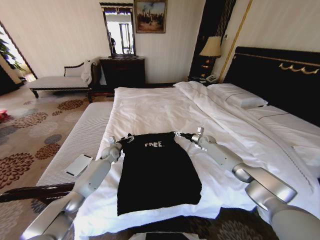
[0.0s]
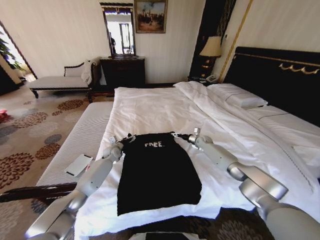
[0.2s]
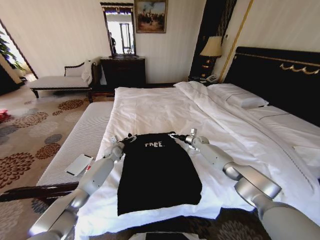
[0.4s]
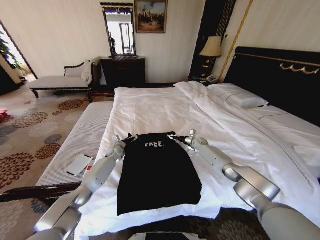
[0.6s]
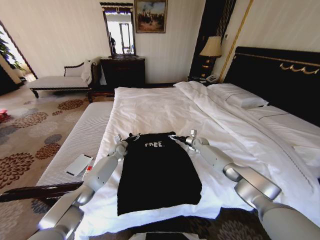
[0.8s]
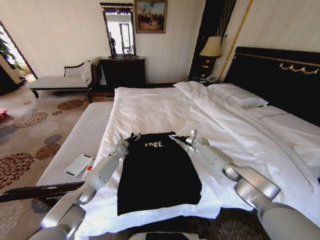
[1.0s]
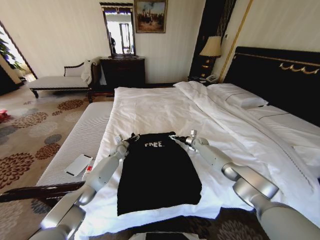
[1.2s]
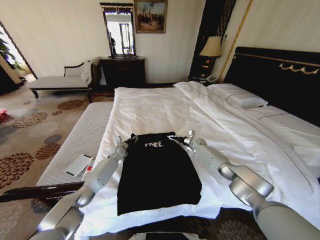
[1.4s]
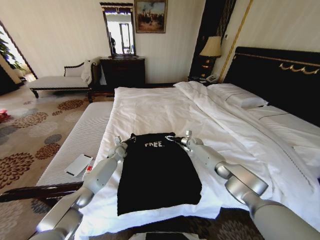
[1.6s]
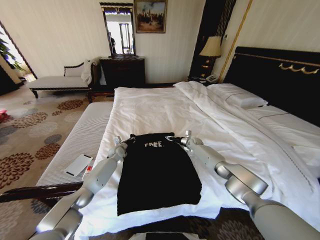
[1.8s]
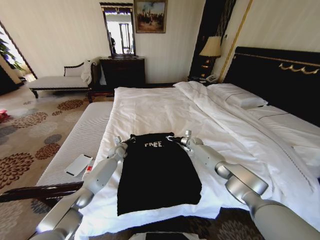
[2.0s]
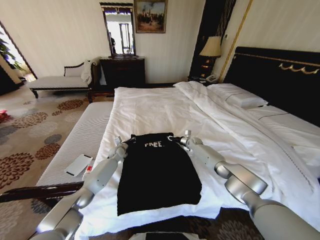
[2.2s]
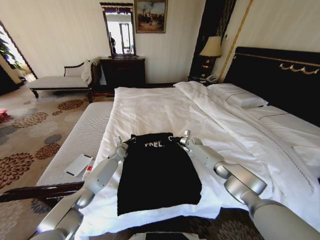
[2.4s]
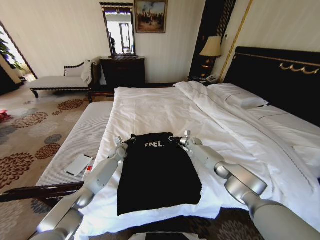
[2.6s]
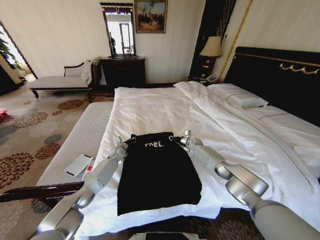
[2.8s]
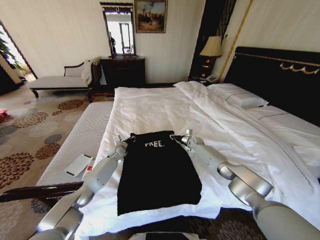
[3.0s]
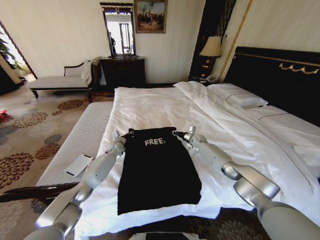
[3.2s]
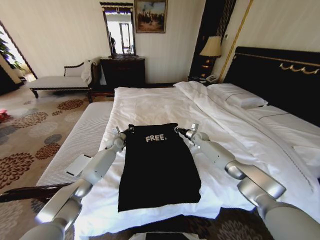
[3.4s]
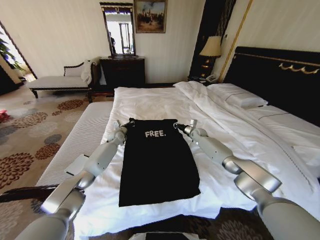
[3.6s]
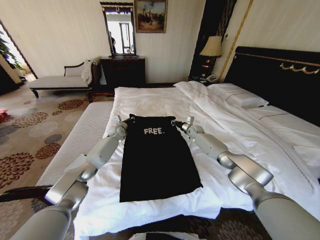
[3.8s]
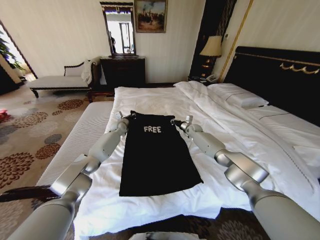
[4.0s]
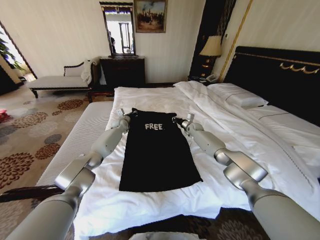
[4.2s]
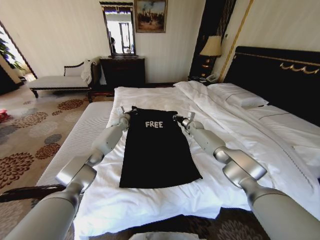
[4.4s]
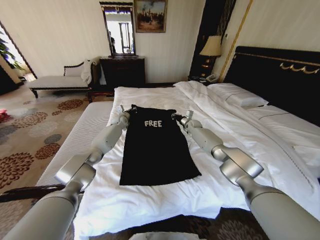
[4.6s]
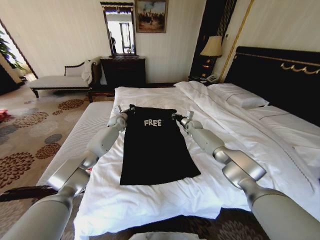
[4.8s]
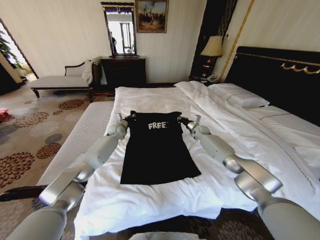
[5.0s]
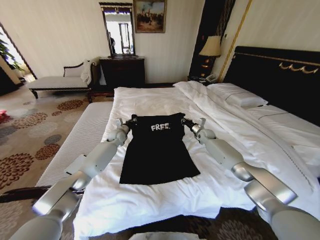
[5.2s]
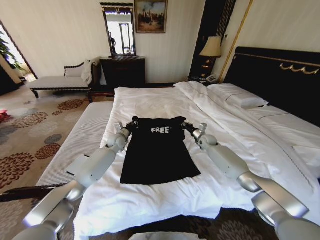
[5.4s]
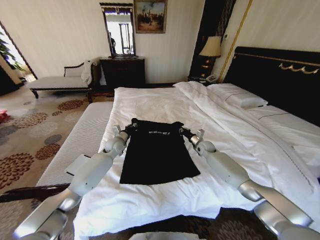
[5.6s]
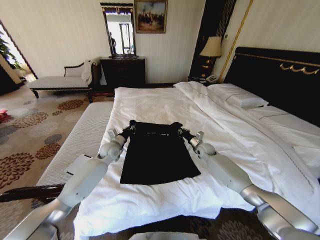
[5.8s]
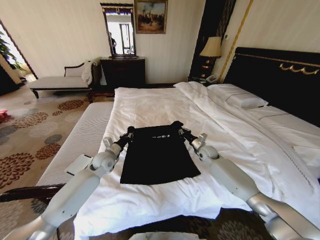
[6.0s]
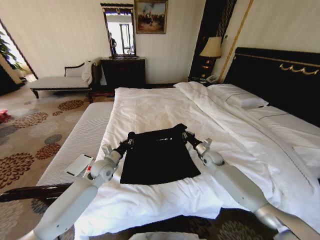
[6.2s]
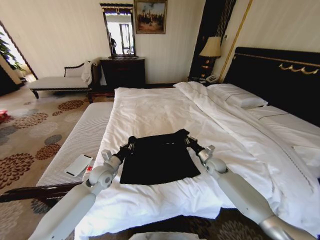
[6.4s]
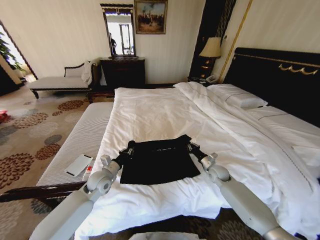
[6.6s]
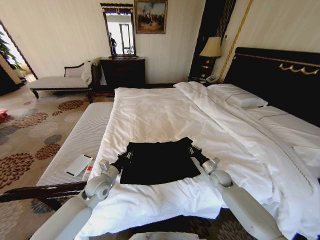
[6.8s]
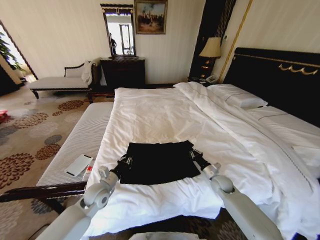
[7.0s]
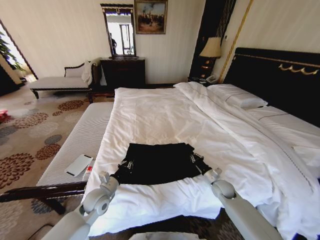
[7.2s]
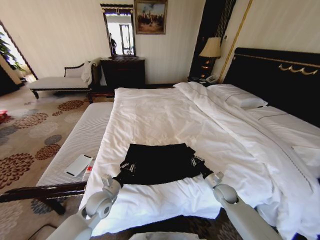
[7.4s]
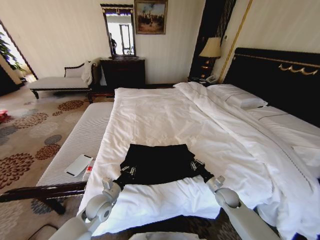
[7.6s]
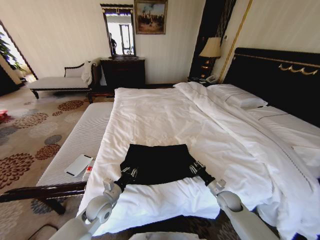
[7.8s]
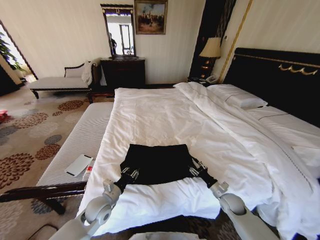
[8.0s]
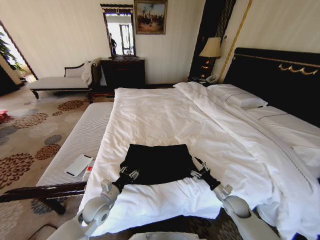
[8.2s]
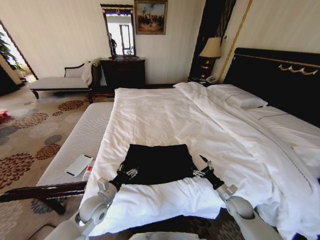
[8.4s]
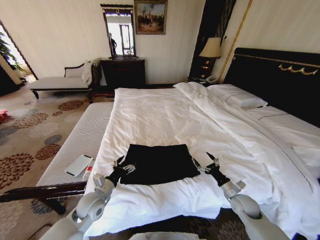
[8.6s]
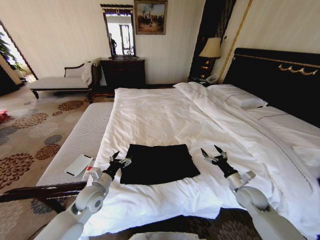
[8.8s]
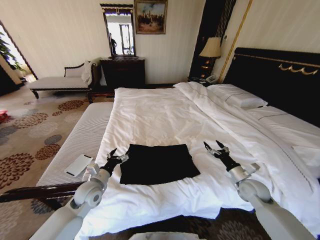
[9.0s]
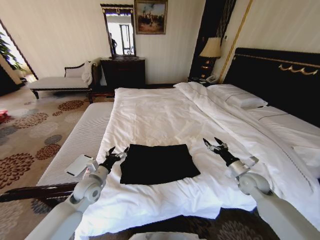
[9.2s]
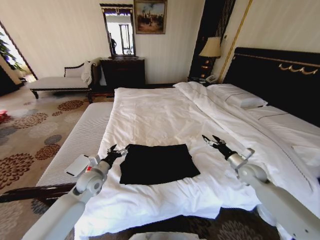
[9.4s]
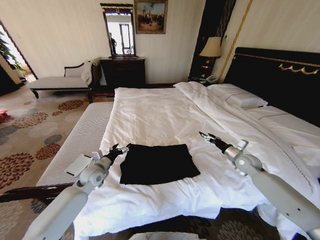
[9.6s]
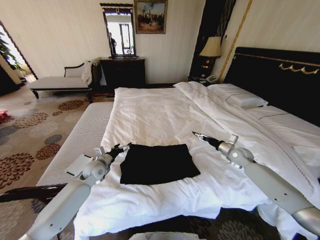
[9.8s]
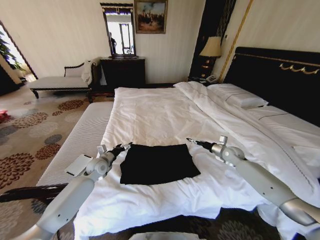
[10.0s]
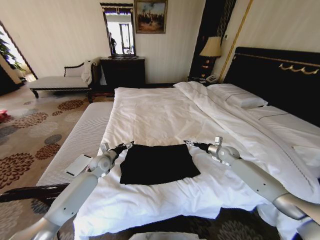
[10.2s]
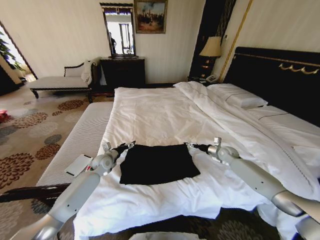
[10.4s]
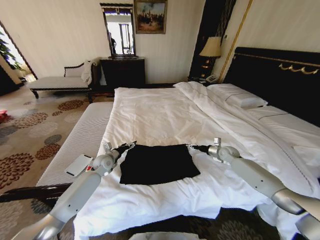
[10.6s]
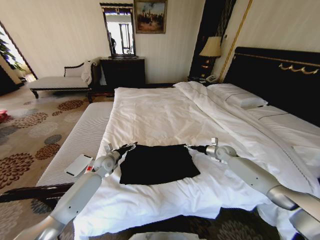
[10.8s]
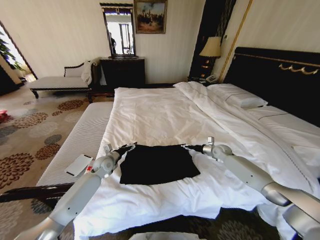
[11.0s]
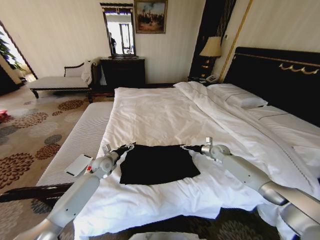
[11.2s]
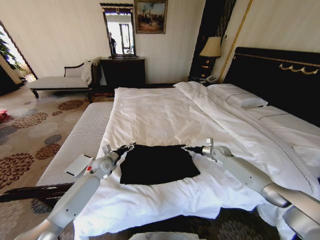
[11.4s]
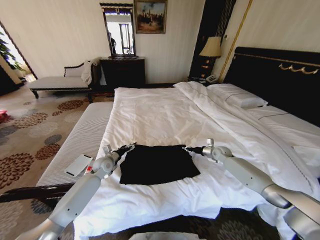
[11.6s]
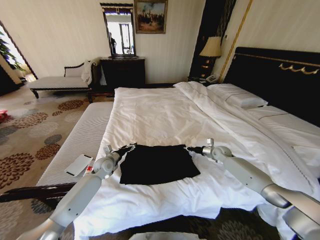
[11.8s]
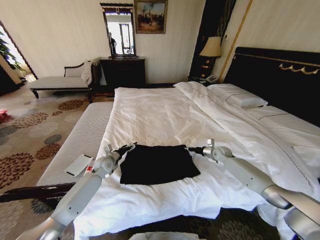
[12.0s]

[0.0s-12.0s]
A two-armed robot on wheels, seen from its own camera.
Task of the whole recording: Fold the clothes on the bed.
0.0s to 1.6s: The right gripper is displaced to the left by roughly 5 cm. The left gripper closes up.
1.6s to 3.0s: The right gripper closes up.
3.0s to 4.4s: The left gripper goes roughly 20 cm upward and forward. Meanwhile the right gripper moves upward and forward, about 10 cm.
4.4s to 6.0s: Both grippers travel together backward, roughly 20 cm.
6.0s to 7.6s: Both grippers travel together backward and downward, roughly 20 cm.
7.6s to 9.0s: The left gripper moves upward, some 5 cm, and opens, while the right gripper moves upward and to the right, roughly 15 cm, and opens.
9.0s to 10.4s: The grippers both shift forward by roughly 20 cm.
10.4s to 12.0s: The right gripper closes its fingers.

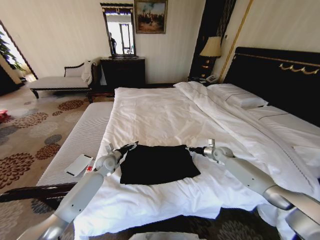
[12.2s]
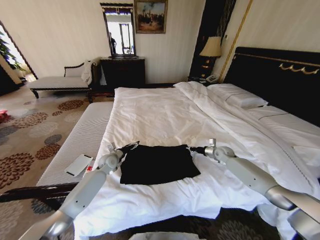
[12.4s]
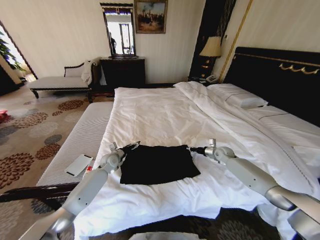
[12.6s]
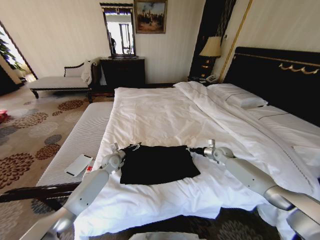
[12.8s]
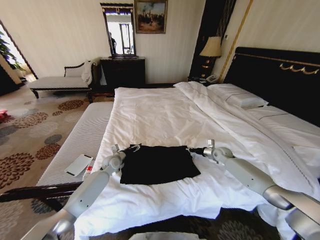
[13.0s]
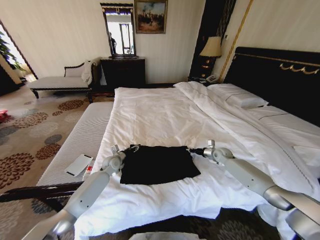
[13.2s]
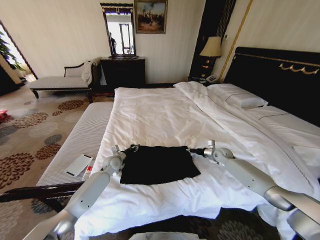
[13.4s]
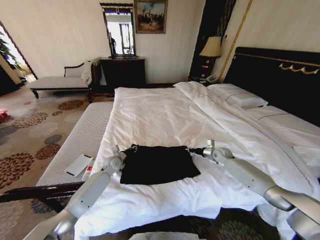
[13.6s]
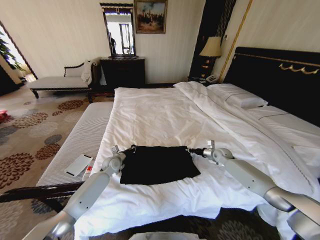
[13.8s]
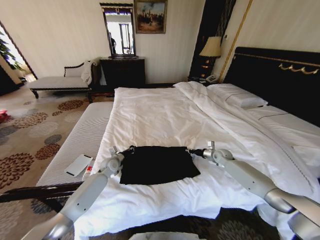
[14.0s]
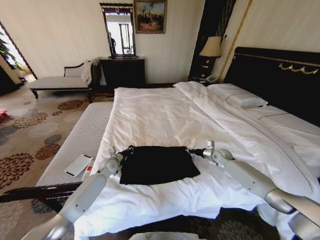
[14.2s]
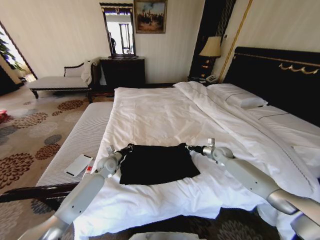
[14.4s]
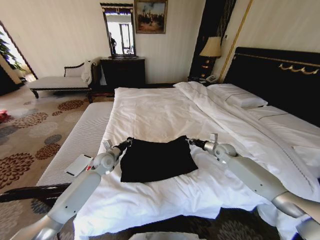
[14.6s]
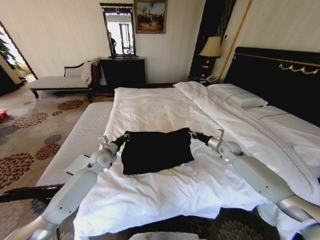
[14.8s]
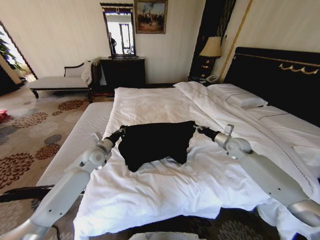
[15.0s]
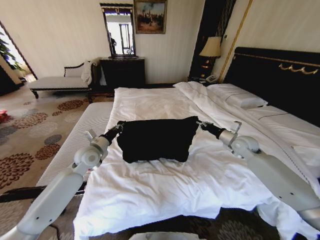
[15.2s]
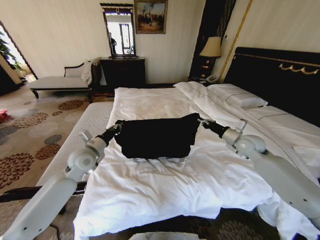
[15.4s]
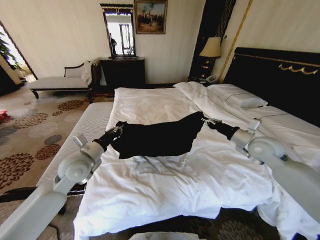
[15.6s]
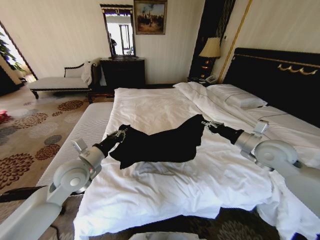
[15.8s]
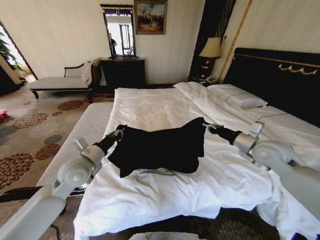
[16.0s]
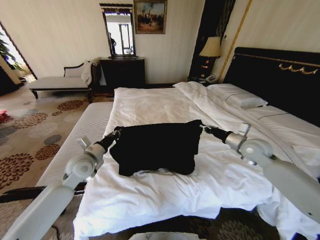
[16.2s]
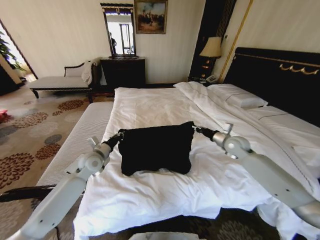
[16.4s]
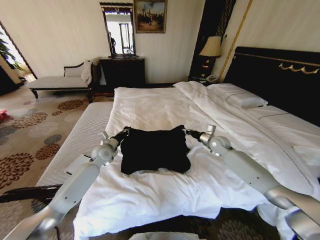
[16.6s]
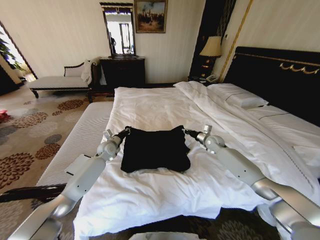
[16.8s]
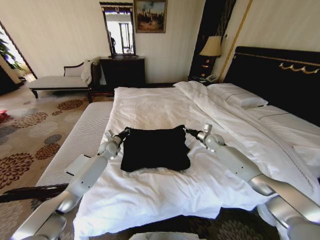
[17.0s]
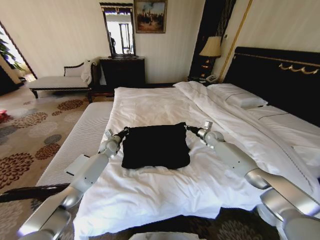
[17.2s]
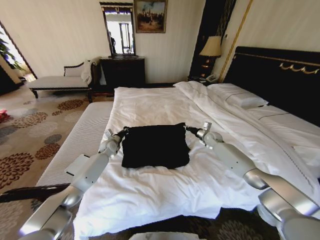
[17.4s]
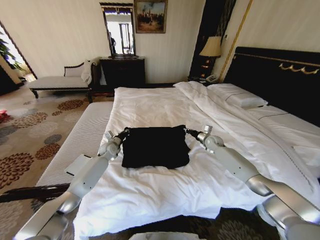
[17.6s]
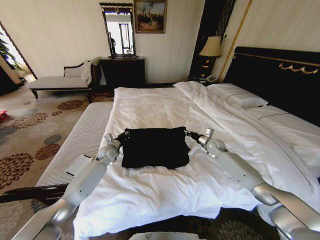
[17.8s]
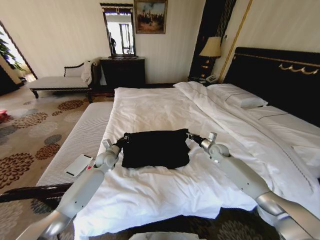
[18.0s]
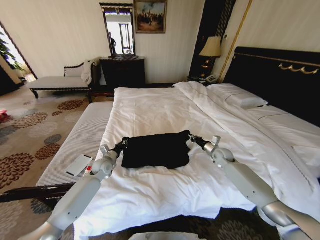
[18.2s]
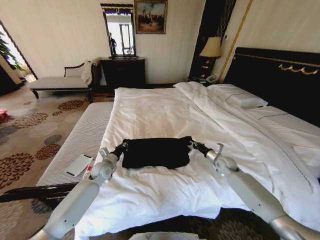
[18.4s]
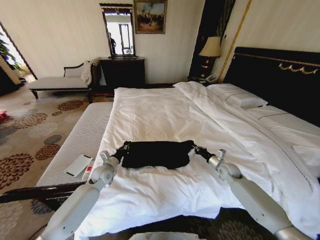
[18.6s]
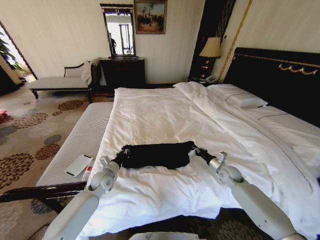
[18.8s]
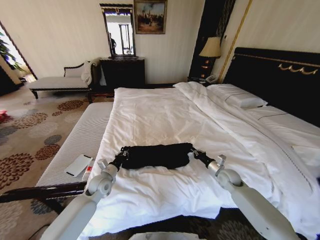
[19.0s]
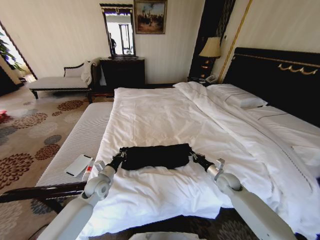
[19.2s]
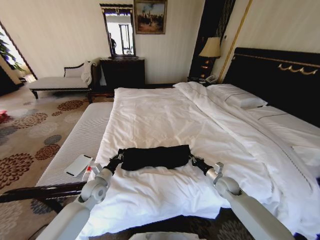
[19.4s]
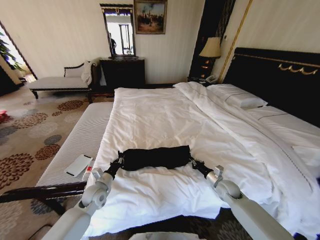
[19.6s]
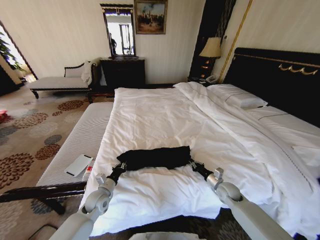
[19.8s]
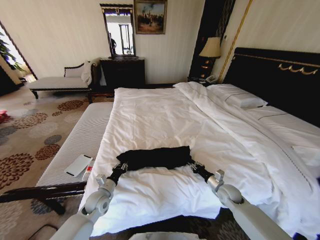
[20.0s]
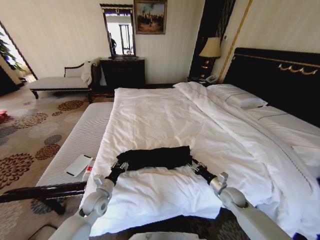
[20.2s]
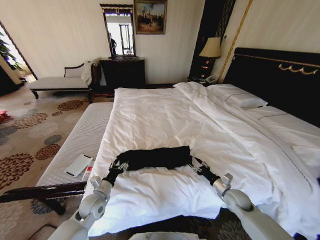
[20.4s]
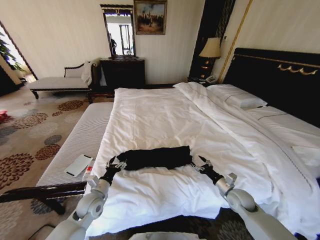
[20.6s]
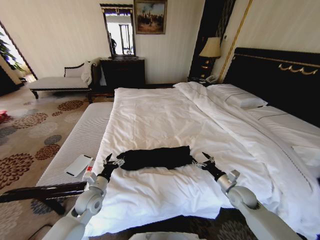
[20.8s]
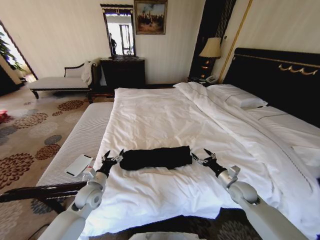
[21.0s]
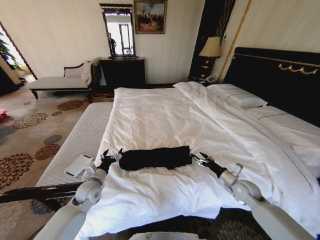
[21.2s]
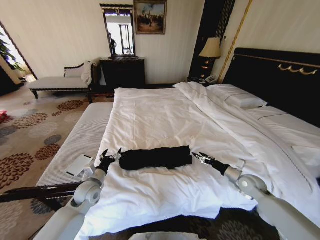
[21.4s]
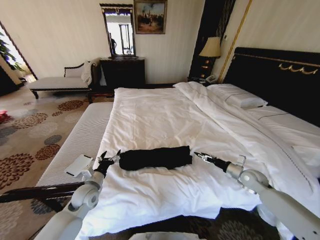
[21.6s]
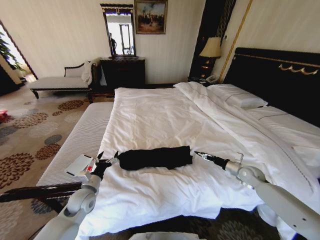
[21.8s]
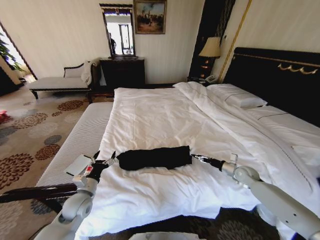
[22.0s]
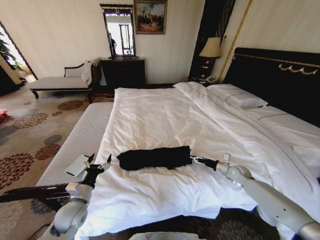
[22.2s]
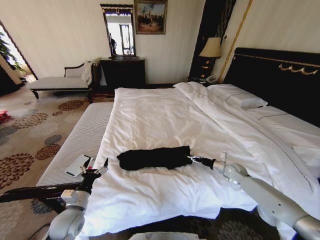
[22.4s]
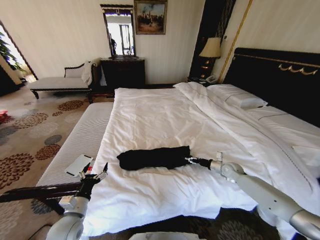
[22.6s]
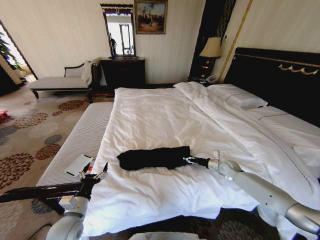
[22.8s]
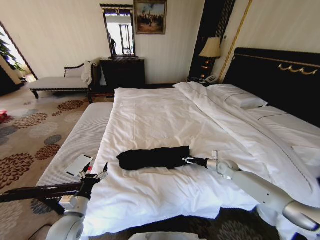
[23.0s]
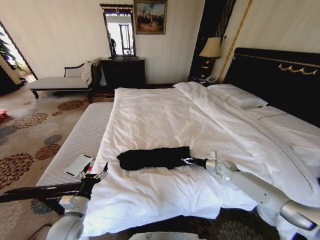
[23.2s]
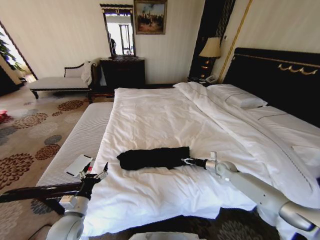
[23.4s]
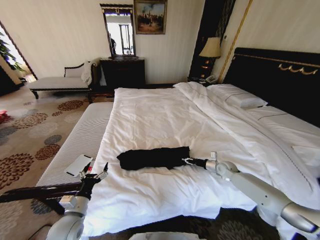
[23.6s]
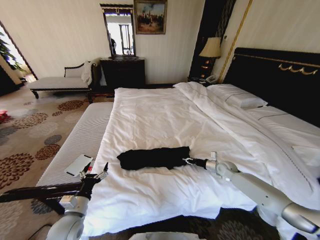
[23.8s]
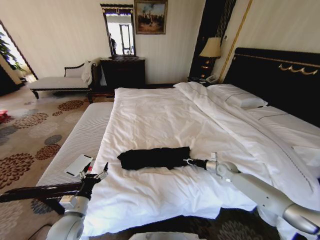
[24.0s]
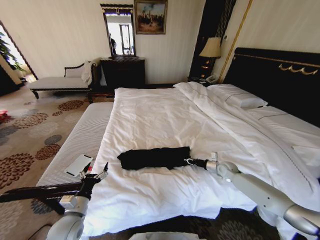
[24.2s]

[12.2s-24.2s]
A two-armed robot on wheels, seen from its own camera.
Task of the whole recording: Fold the clothes on the bed.
12.2s to 13.8s: The left gripper closes.
13.8s to 15.2s: The grippers both shift upward by some 15 cm.
15.2s to 16.6s: The left gripper travels downward and forward by some 10 cm. Meanwhile the right gripper goes approximately 10 cm to the left and downward, and reaches about 10 cm backward, then returns.
16.6s to 18.2s: Both grippers move downward, roughly 5 cm. The right gripper travels forward and back again, some 5 cm each way; the left gripper travels forward and back again, roughly 10 cm each way.
18.2s to 19.8s: The right gripper goes approximately 20 cm backward and downward; the left gripper moves backward, some 15 cm.
19.8s to 21.2s: The left gripper ends up about 5 cm from where it was, and opens its fingers; the right gripper goes some 5 cm upward, and opens.
21.2s to 22.6s: The right gripper travels forward by approximately 10 cm. The left gripper travels backward by some 15 cm.
22.6s to 24.2s: The right gripper closes.
